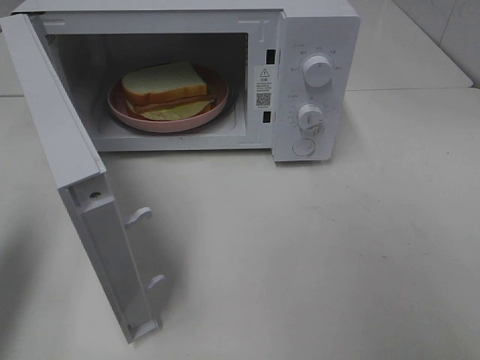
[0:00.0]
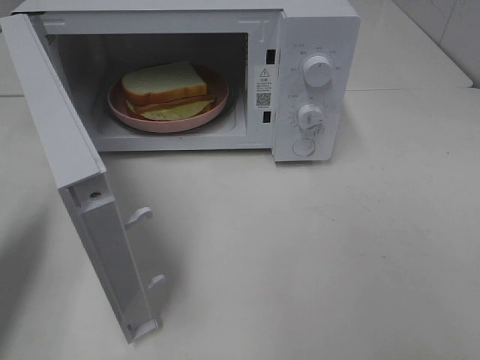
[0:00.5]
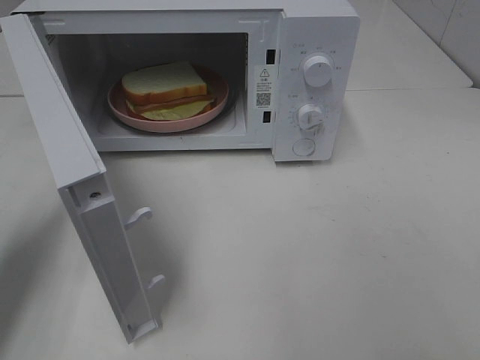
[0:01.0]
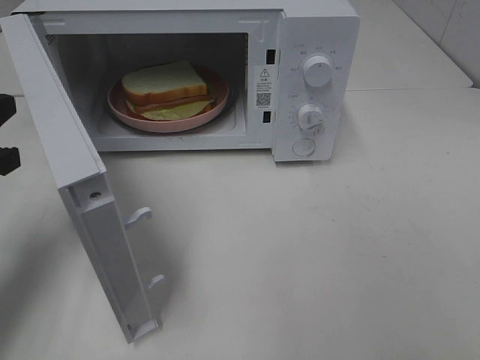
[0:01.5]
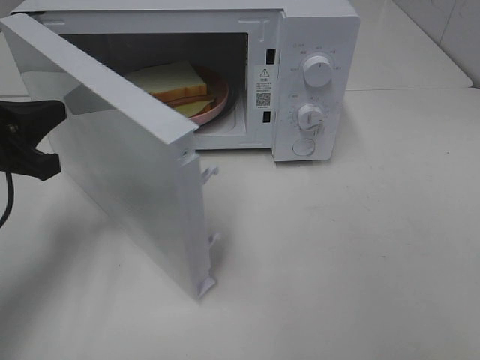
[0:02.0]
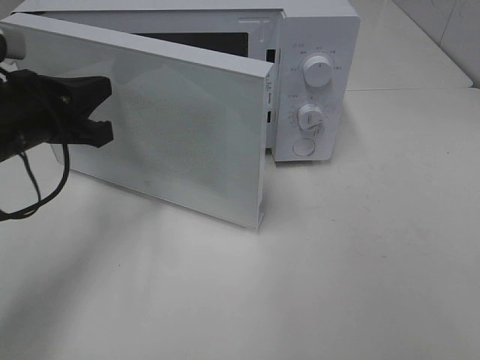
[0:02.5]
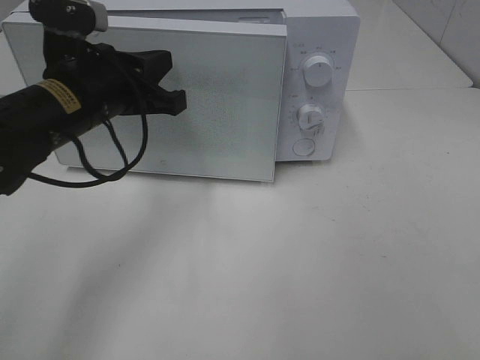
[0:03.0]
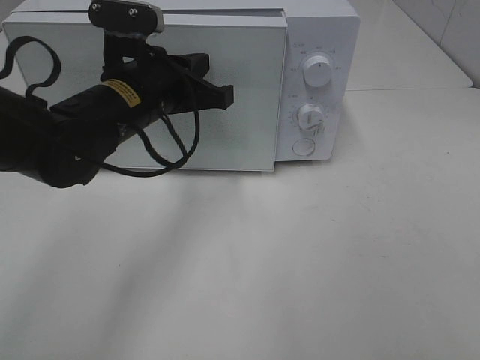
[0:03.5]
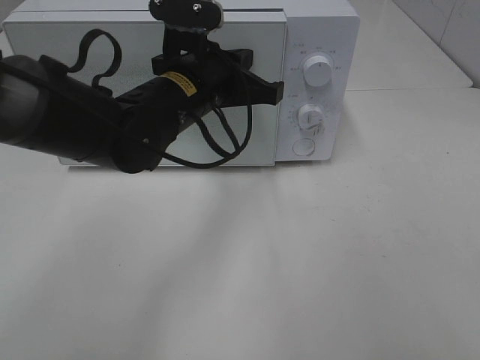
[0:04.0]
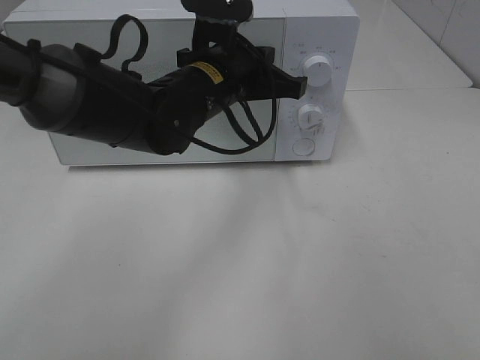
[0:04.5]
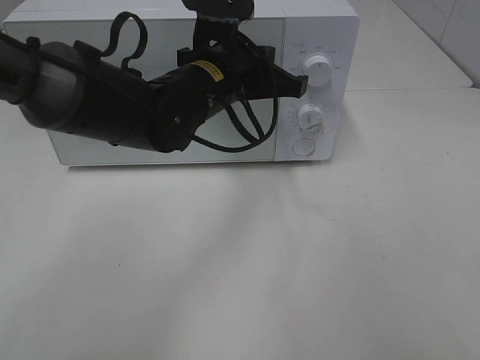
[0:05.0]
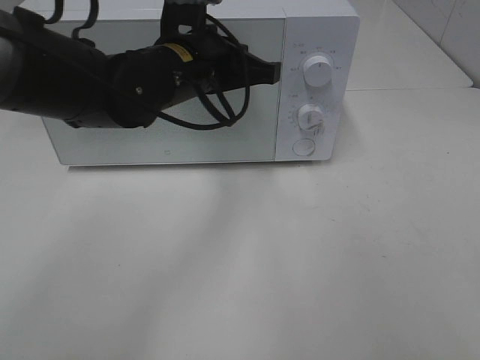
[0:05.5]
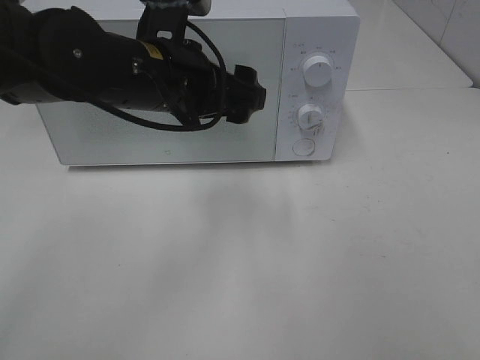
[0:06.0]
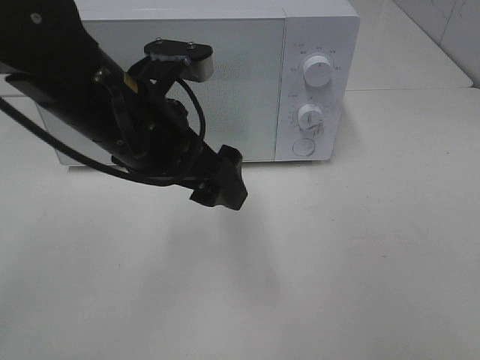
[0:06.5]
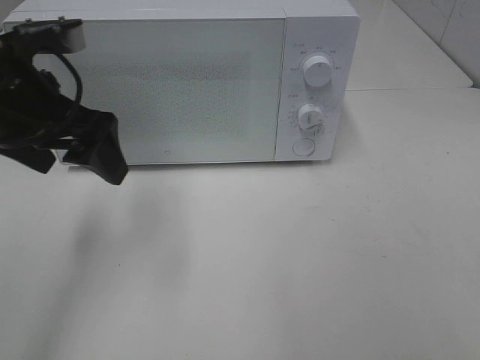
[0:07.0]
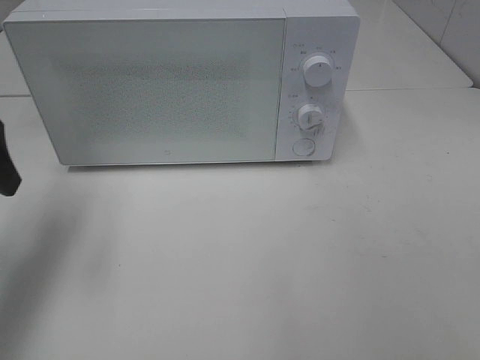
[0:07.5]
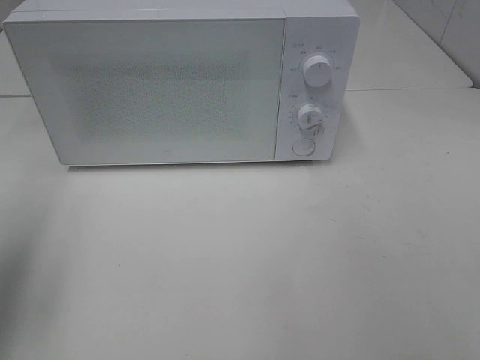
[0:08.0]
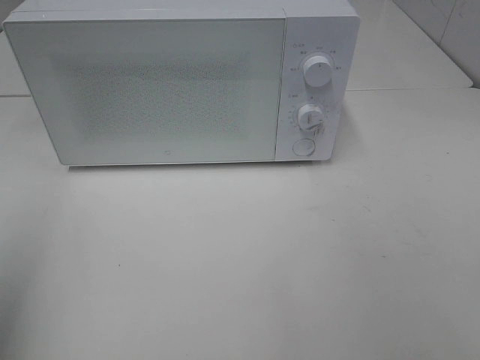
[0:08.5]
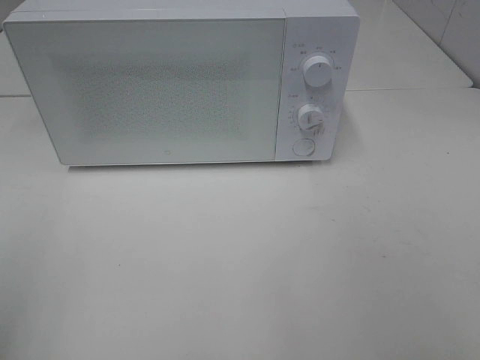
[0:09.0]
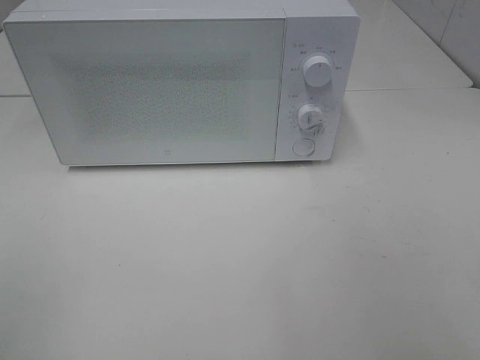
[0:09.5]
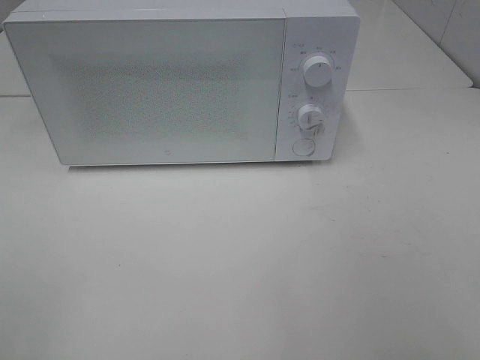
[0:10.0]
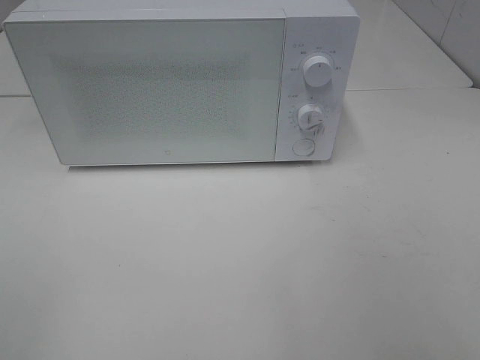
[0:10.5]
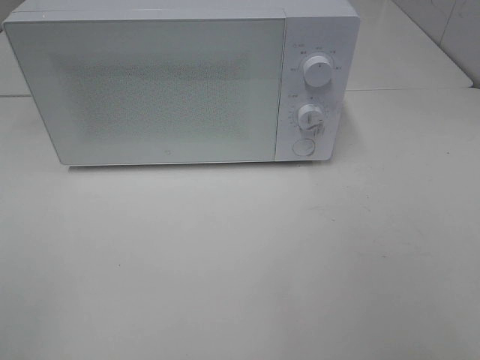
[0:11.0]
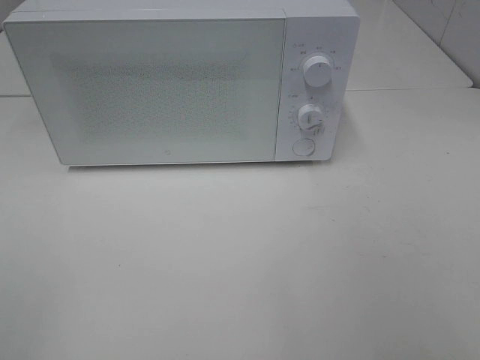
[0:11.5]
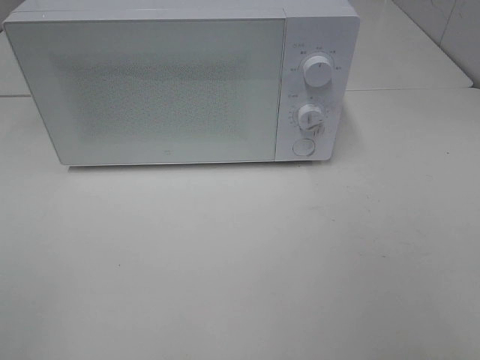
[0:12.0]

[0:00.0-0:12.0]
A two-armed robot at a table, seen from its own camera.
Task of the whole recording: Heat Sandwich.
Step, 0:00.0 to 0:06.0: Left hand: close the microwave door.
0:00.0 to 0:02.0: The left gripper moves downward, to the right and forward, about 15 cm.
0:02.0 to 0:04.0: The left gripper goes approximately 20 cm to the right.
0:04.0 to 0:06.0: The left gripper moves approximately 5 cm, and opens.
0:06.0 to 0:08.0: The left gripper moves to the left, some 25 cm.
0:08.0 to 0:10.0: The left gripper heads backward, covering about 20 cm.

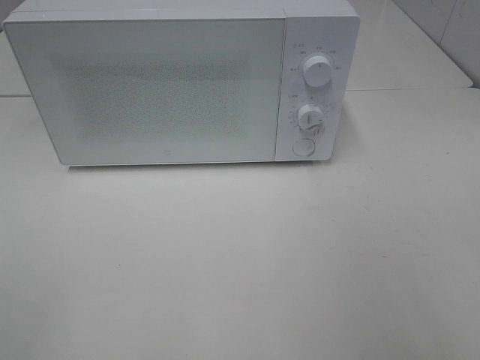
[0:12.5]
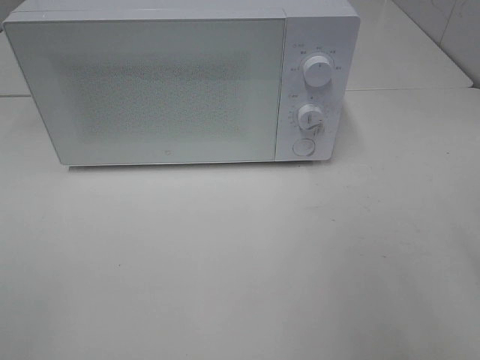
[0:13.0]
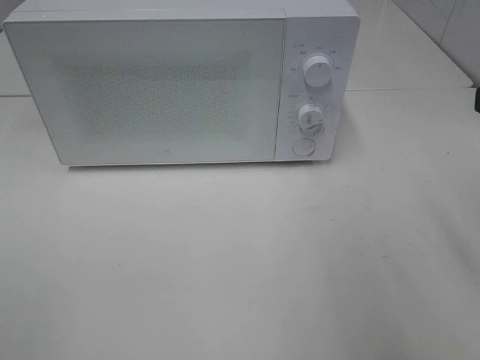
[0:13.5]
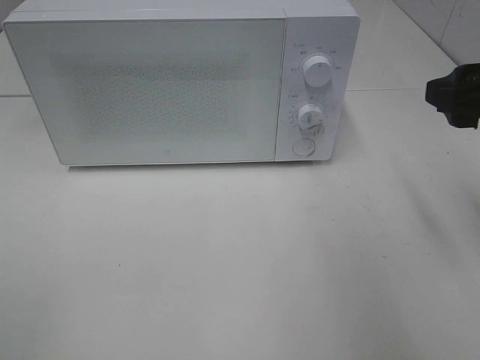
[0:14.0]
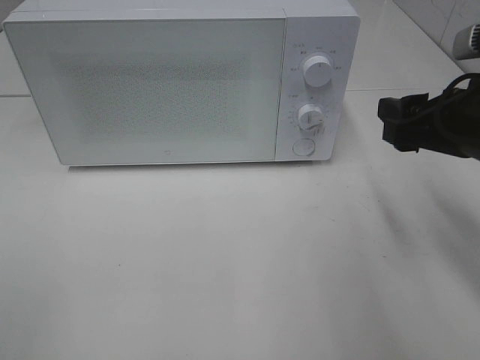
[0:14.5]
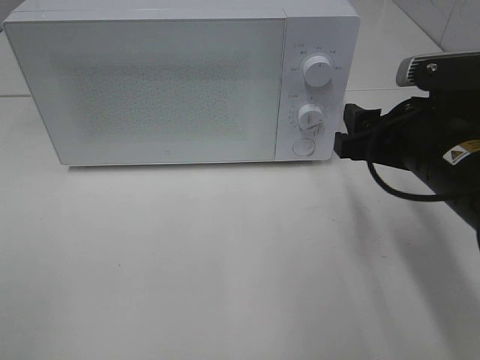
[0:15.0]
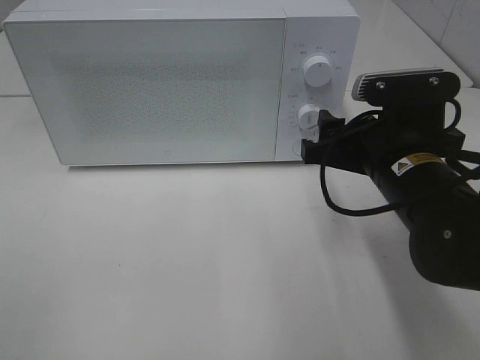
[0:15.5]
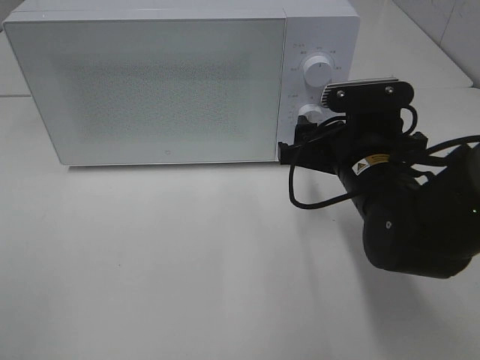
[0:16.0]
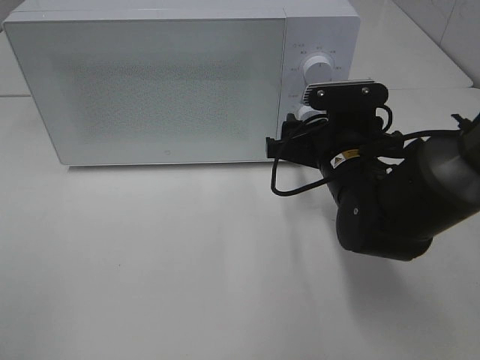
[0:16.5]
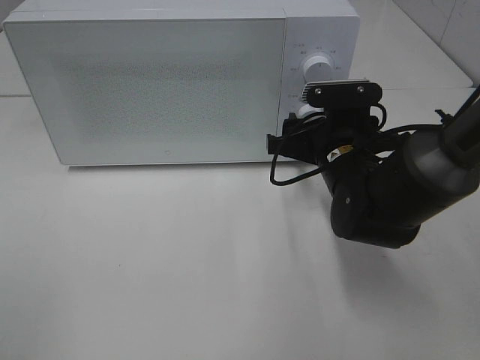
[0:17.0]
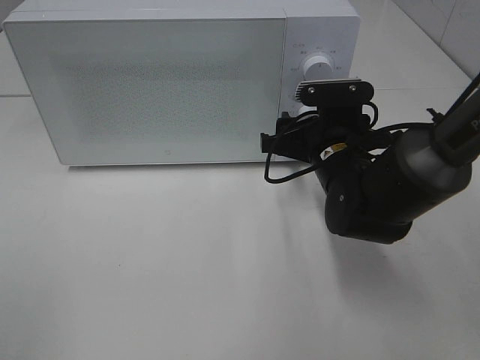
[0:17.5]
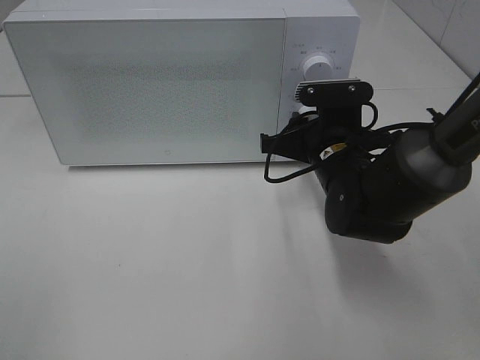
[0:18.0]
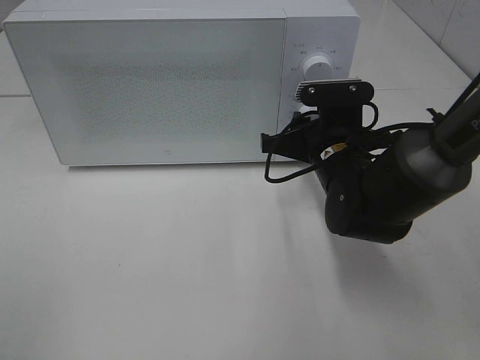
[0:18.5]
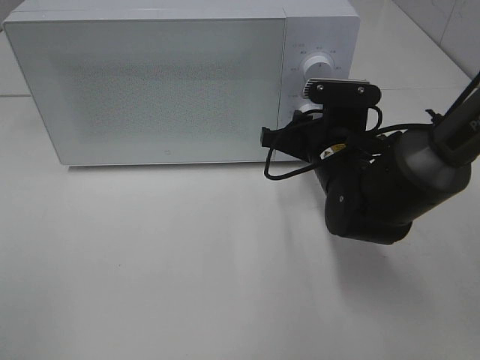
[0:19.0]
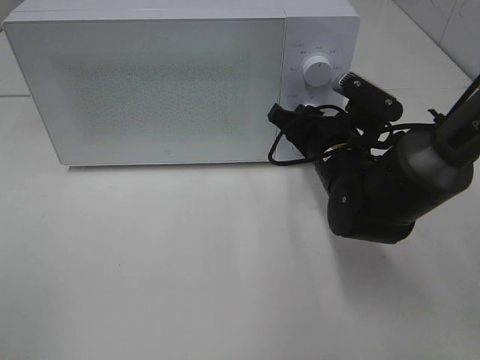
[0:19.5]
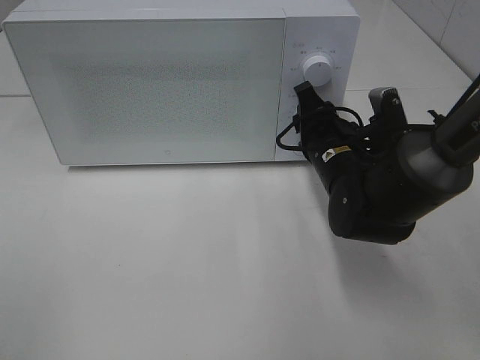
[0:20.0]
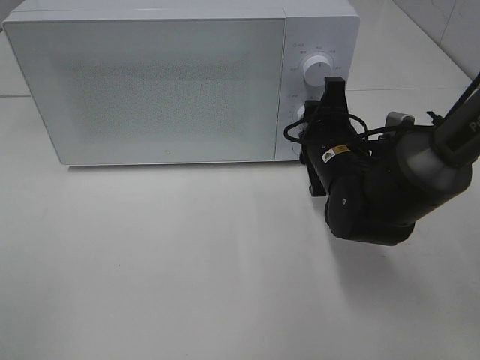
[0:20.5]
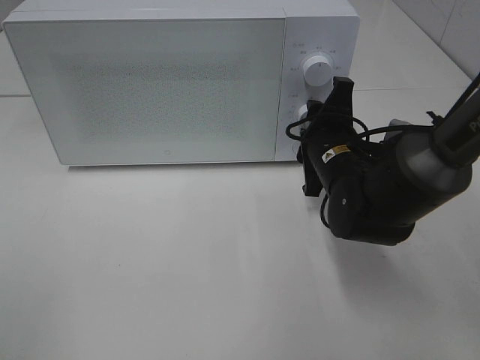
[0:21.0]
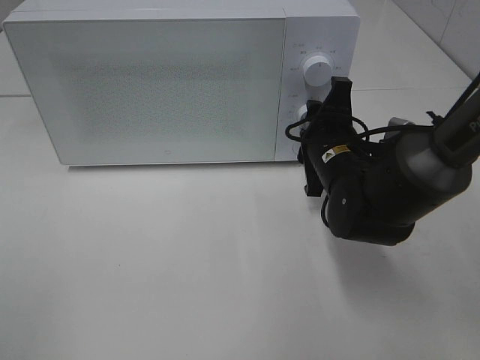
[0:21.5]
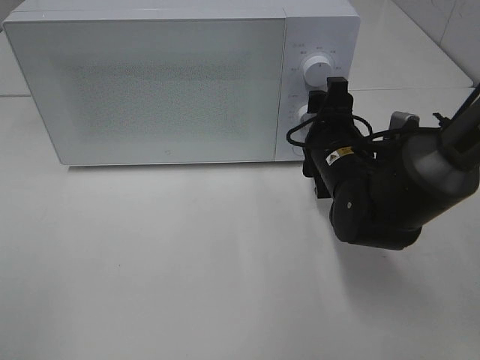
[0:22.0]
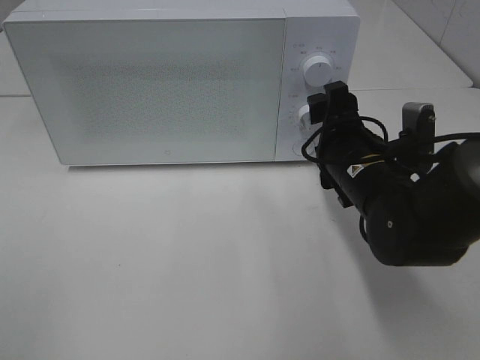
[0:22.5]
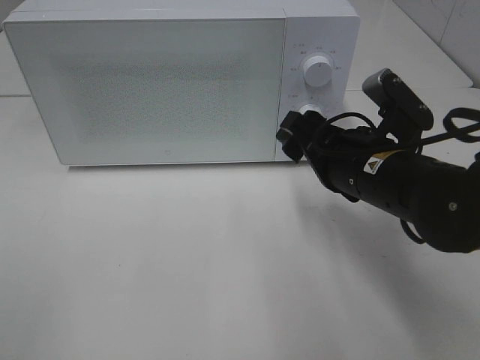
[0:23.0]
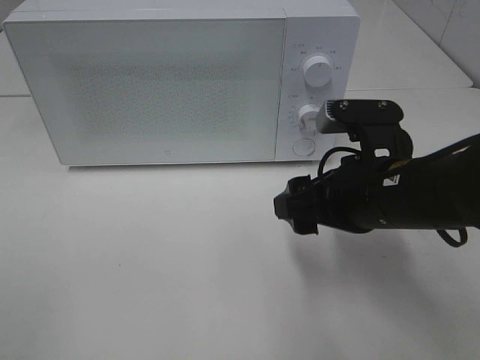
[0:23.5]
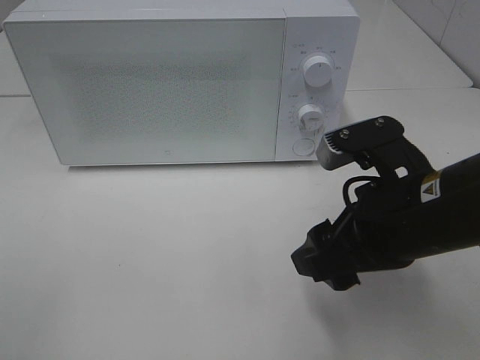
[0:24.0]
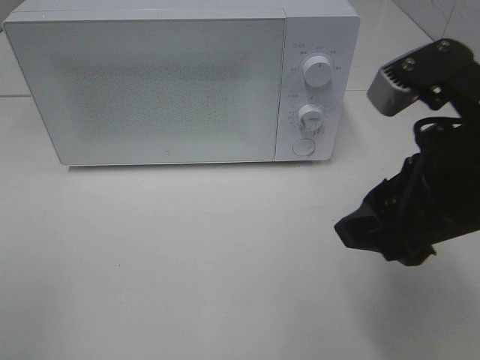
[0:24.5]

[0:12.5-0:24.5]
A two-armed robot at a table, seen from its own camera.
Task of the whole recording: Heat Sandwich.
Step, 0:12.5 to 0:22.0: Right hand: twist timer button.
0:12.5 to 0:14.5: The right gripper heads forward and downward, covering some 20 cm.
0:14.5 to 0:16.5: The right gripper goes roughly 15 cm to the left, downward and forward.
0:16.5 to 0:18.5: The right gripper closes its fingers.
0:20.5 to 0:22.5: The right gripper opens up.
0:22.5 to 0:24.5: The right gripper travels upward and backward by some 20 cm.

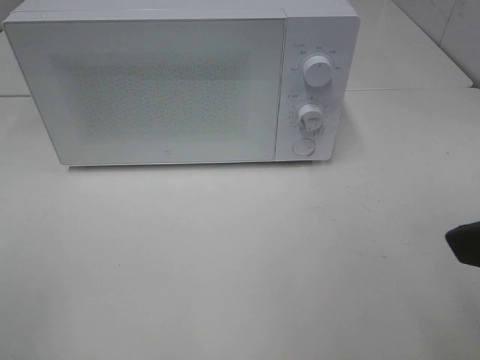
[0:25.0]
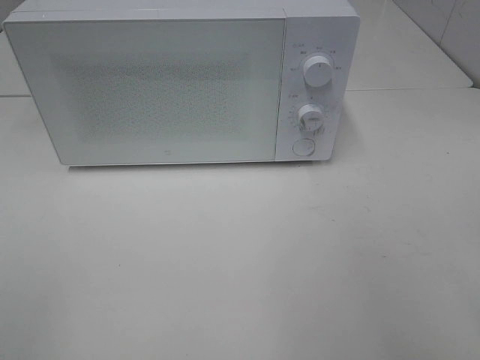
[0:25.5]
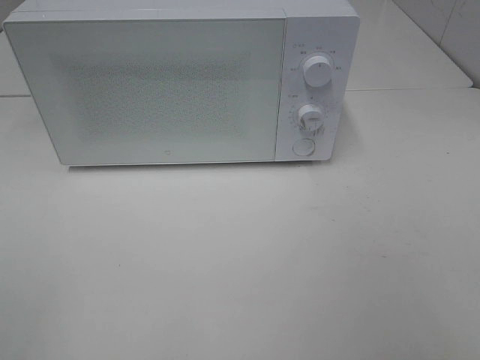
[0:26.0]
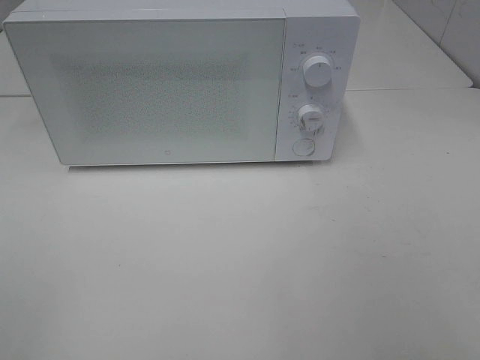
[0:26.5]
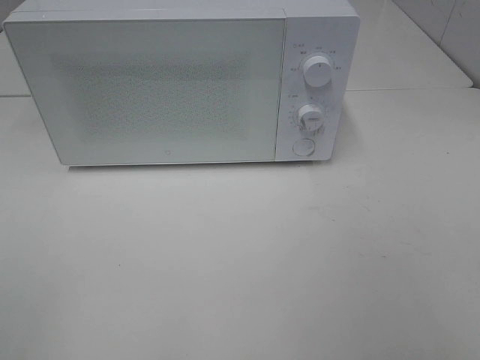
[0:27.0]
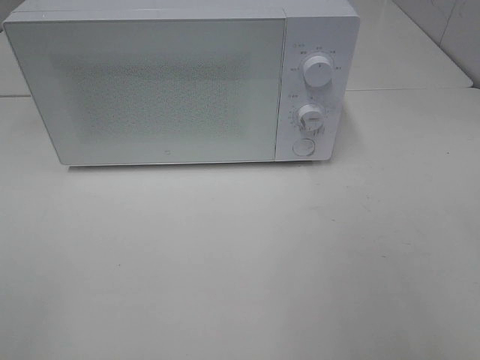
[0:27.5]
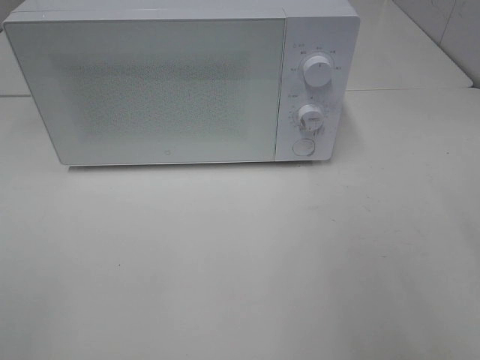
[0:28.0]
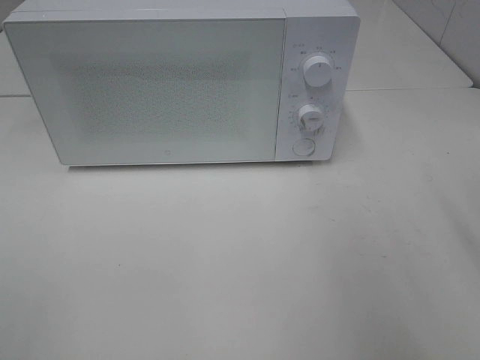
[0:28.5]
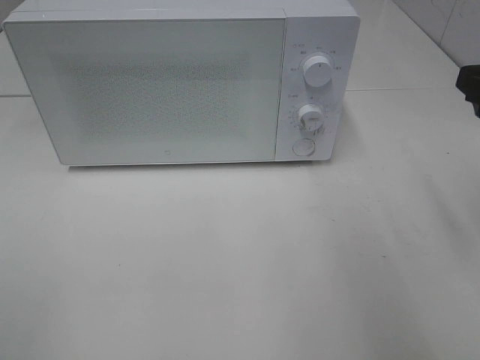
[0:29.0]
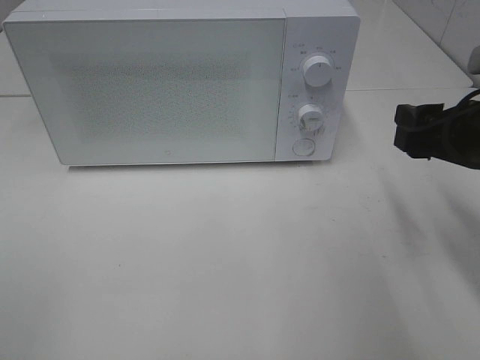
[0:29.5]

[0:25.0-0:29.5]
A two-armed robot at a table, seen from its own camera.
Task of the whole recording: Heat Sandwich.
0:25.0 to 0:27.0: The right gripper heads backward and to the right, covering about 10 cm.
0:27.0 to 0:29.5: The right gripper moves forward, roughly 25 cm.
